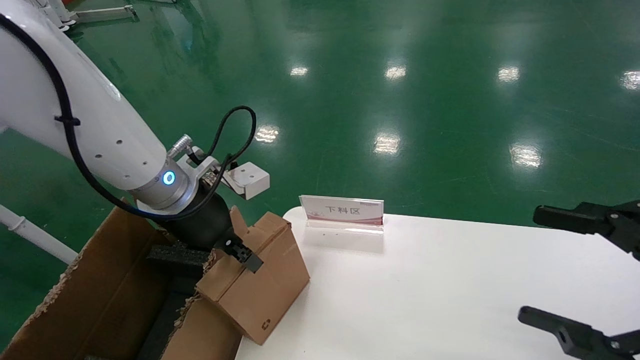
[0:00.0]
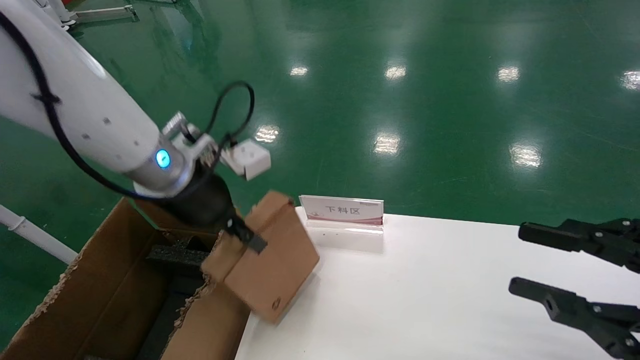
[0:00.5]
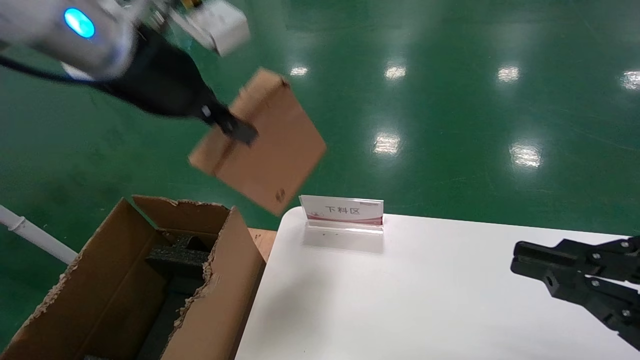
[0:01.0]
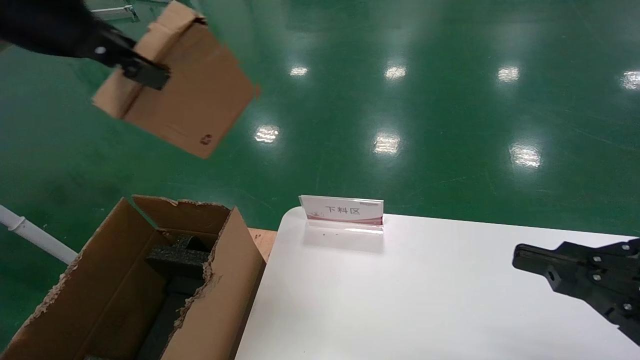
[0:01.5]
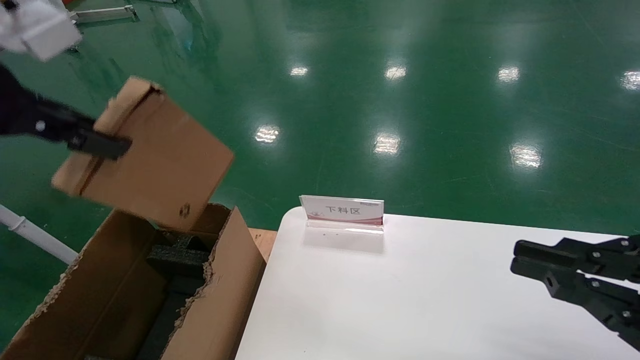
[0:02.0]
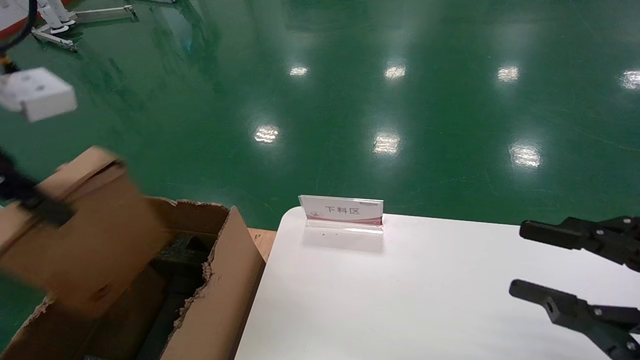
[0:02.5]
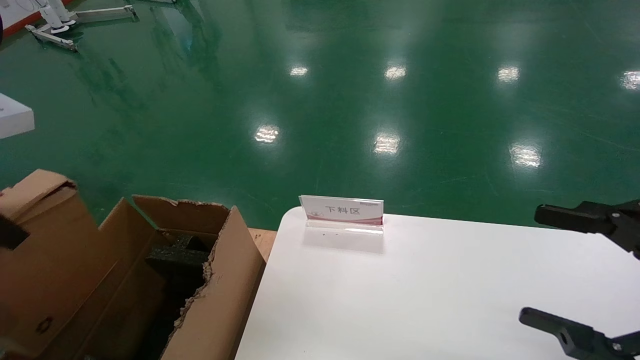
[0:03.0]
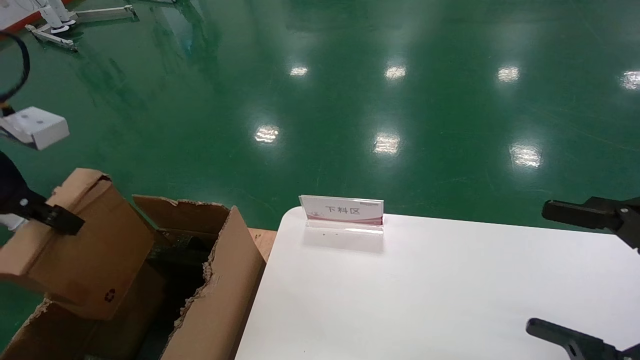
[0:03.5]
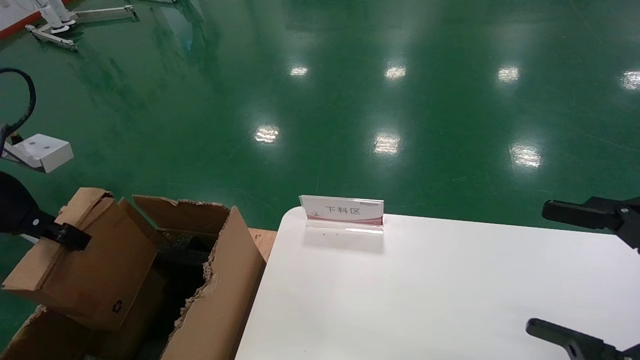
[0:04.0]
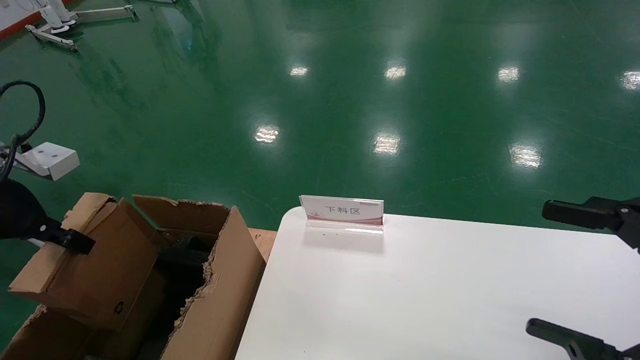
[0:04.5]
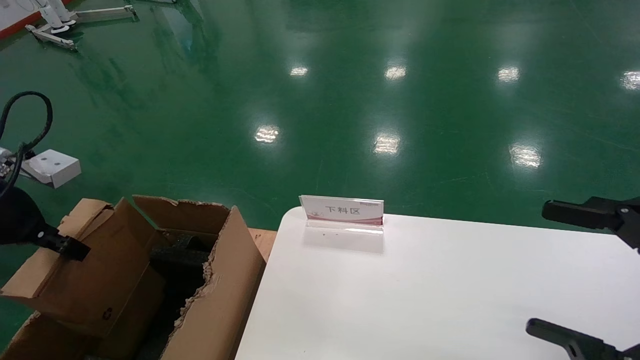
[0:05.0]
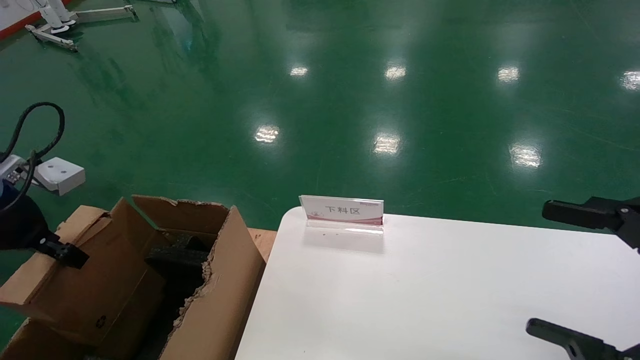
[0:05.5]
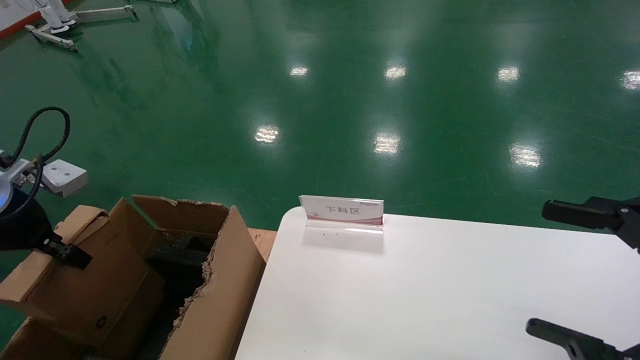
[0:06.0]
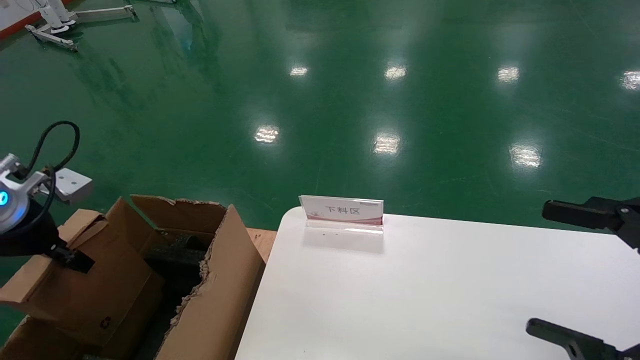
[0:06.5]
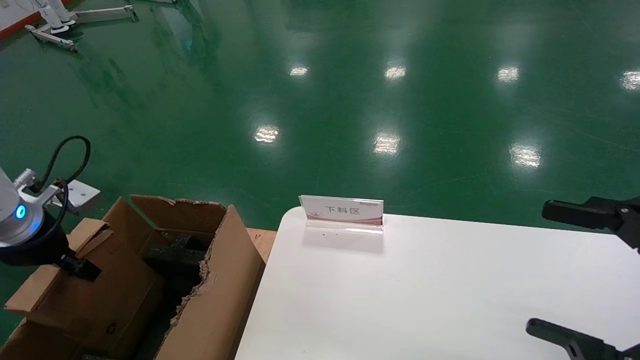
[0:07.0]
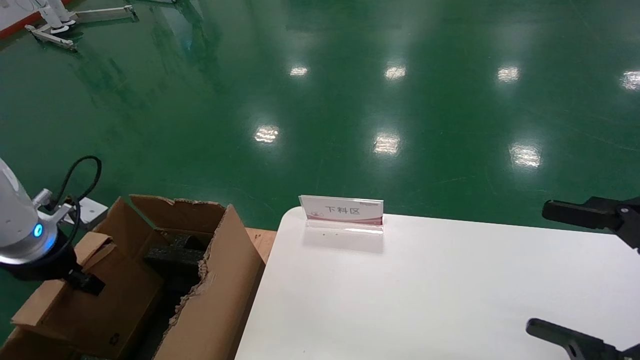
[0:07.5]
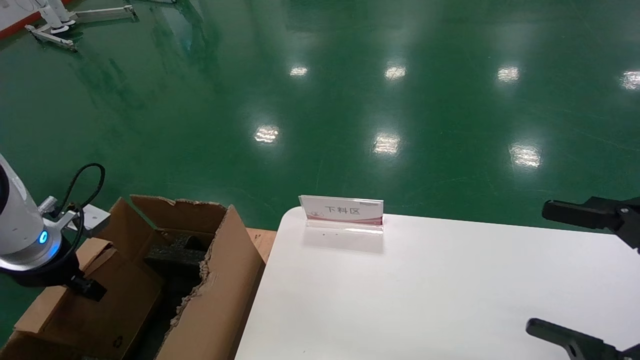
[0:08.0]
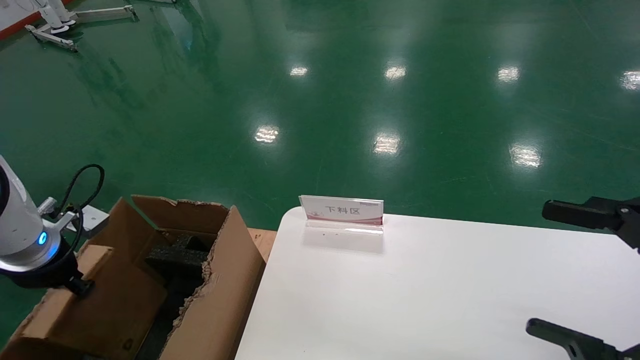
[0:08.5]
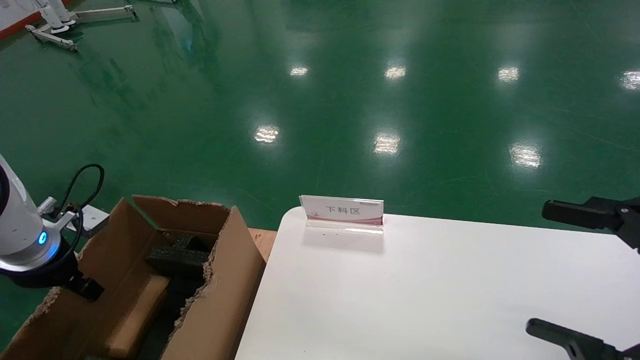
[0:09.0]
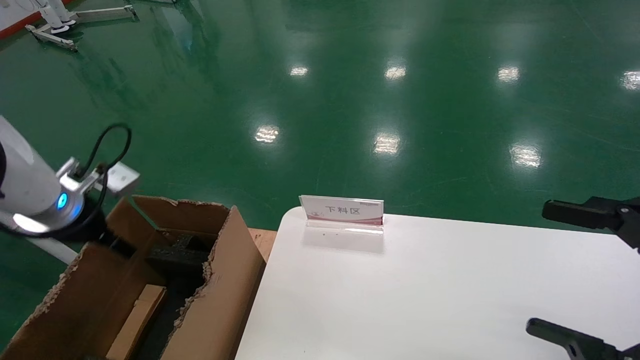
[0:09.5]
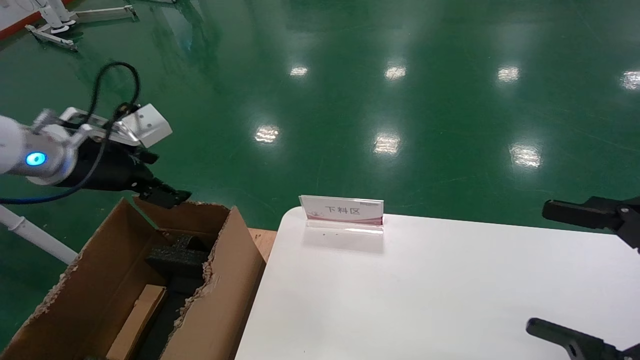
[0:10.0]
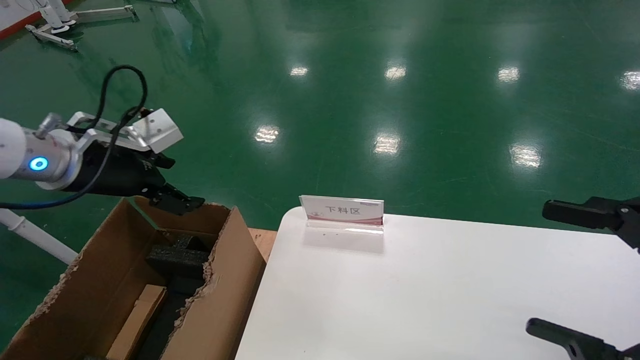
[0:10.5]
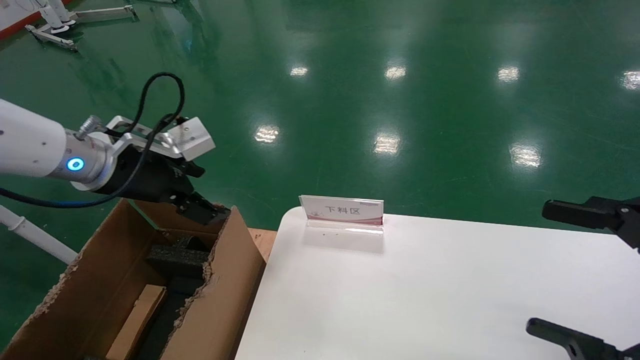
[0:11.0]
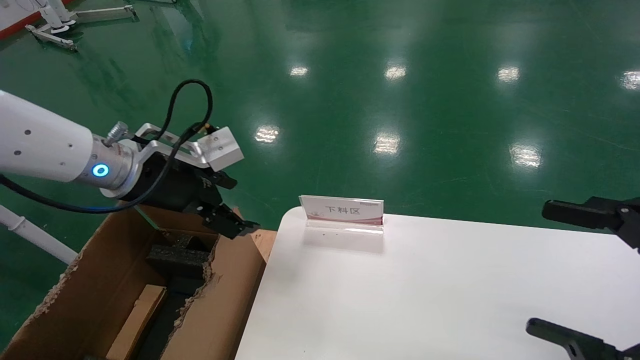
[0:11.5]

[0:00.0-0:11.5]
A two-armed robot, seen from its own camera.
Task of the whole recording: pick up the small cardboard box and load it into the large cardboard box.
Step, 0:00.0 to 0:08.5: Place the paper box in the another big box.
0:00.0 to 0:02.0: The right gripper closes up. The left gripper shifts roughly 25 cm upward, backward and to the left, and closes up.
0:02.0 to 0:04.0: The right gripper opens its fingers, while the left gripper shifts roughly 15 cm downward and to the left.
0:04.0 to 0:06.0: The left gripper changes place by approximately 5 cm.
0:06.0 to 0:07.5: The left gripper is displaced downward by about 10 cm.
0:07.5 to 0:09.5: The left gripper shifts by some 5 cm, and opens up.
0:09.5 to 0:11.5: The left gripper shifts about 10 cm to the right.
